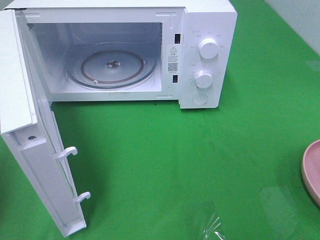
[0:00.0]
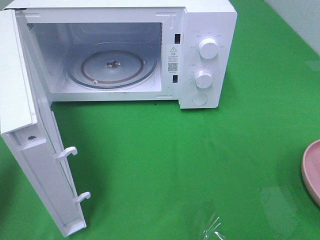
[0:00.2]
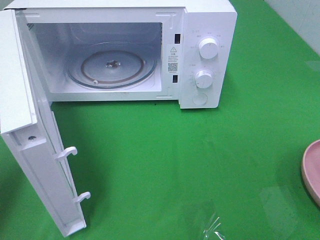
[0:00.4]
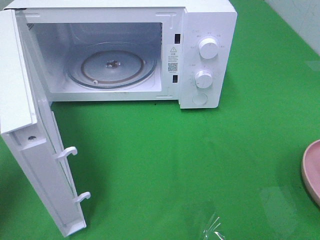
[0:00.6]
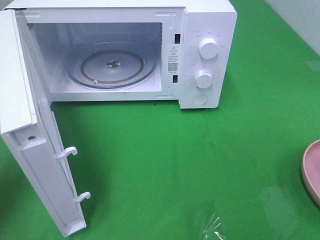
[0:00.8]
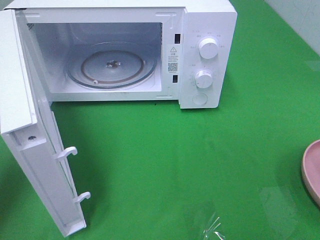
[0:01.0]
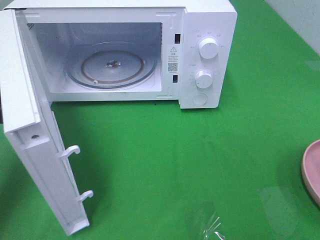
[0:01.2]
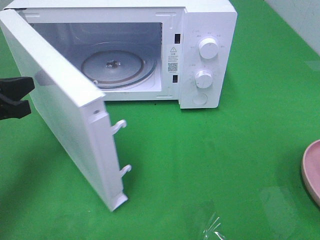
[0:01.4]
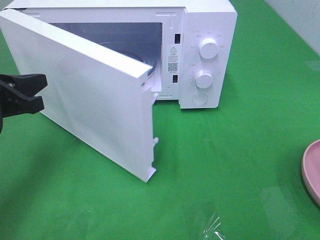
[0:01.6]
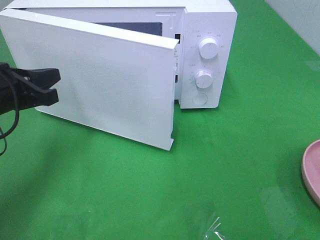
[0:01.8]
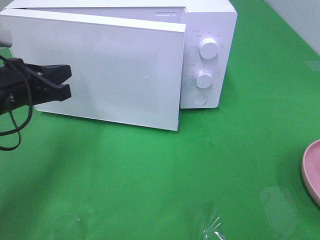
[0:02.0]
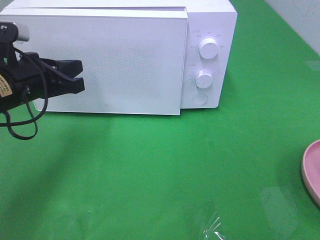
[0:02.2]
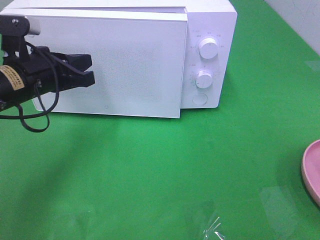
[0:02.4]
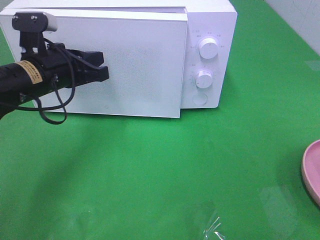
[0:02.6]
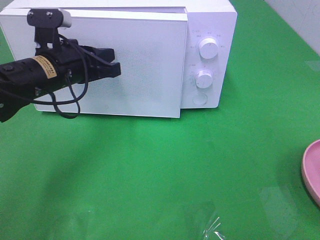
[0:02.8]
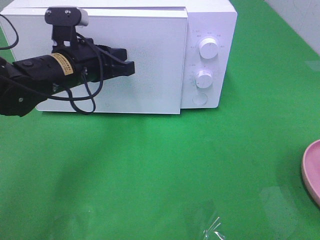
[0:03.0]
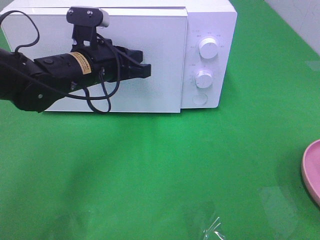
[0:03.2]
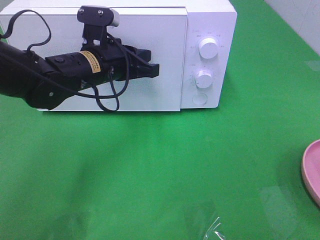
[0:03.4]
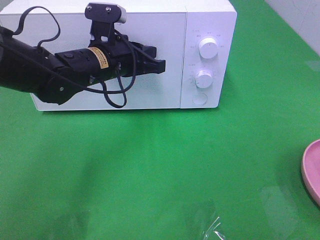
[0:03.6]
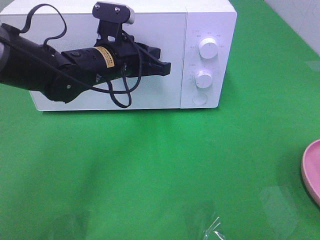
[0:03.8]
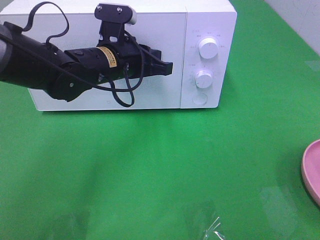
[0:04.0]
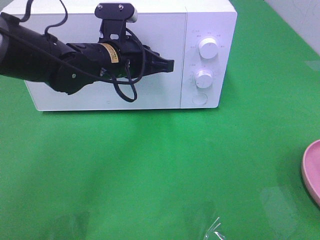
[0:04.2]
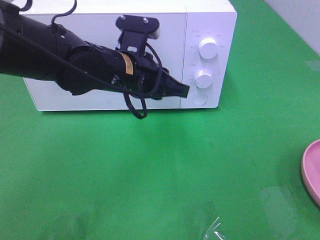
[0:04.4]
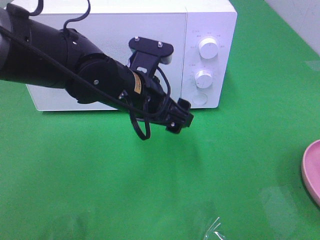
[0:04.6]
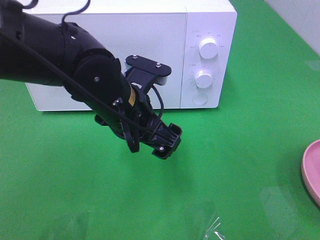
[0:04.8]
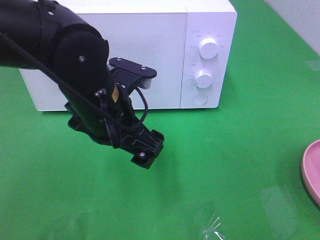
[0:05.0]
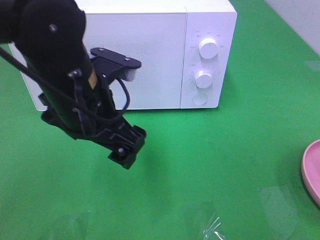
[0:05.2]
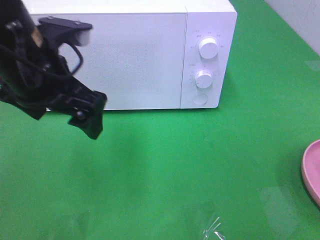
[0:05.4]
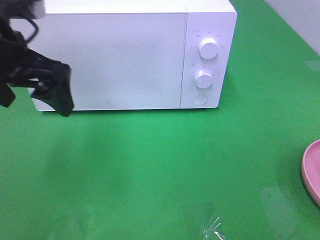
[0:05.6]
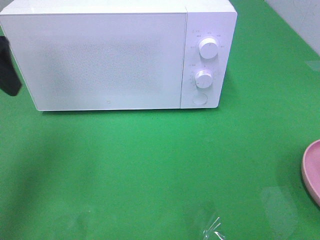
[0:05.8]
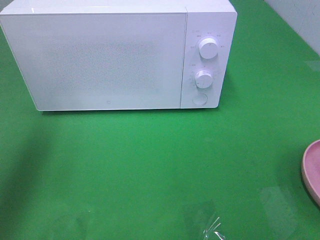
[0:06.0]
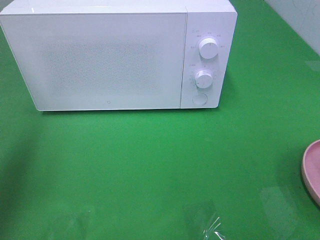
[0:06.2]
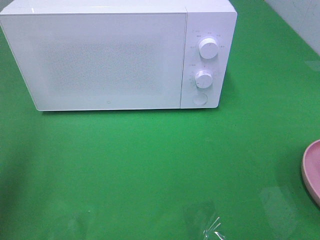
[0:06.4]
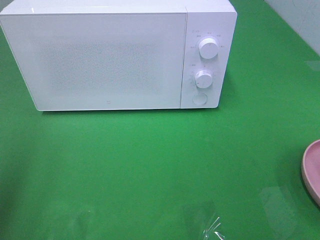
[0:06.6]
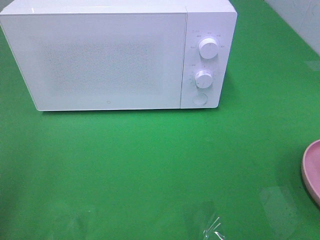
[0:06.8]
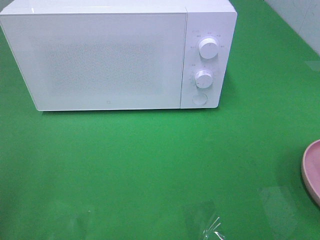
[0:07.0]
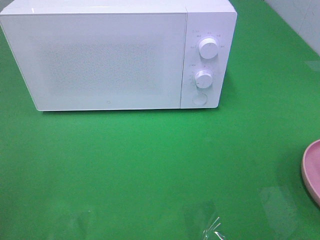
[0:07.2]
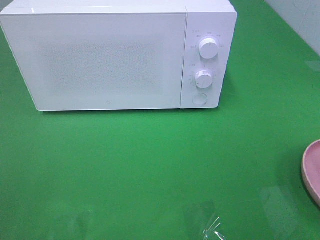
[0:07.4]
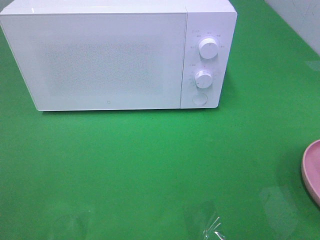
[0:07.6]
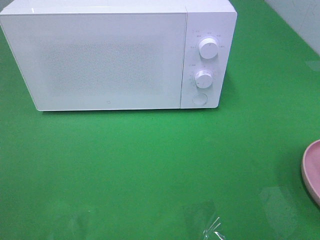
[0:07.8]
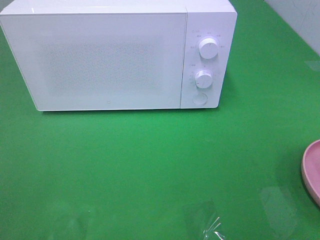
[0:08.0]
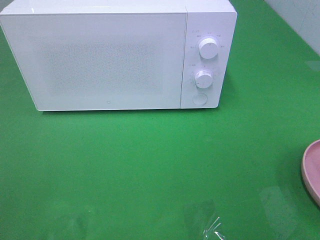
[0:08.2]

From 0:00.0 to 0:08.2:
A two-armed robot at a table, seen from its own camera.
Task of the whole recording: Heat the burger.
Step, from 0:00.0 to 0:04.4: Left hand: close the microwave door.
From 0:00.0 to 0:01.6: The left gripper heads forward, to the right and downward, covering roughly 15 cm.
From 0:01.6 to 0:03.2: The left gripper heads to the right and forward, covering some 15 cm.
From 0:03.2 to 0:05.0: The left gripper moves backward, roughly 10 cm, and opens.
From 0:05.0 to 0:06.6: The left gripper travels to the left, upward and backward by about 30 cm.

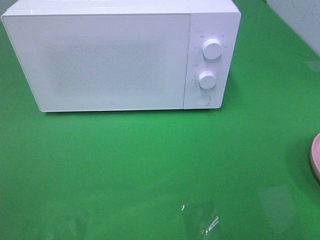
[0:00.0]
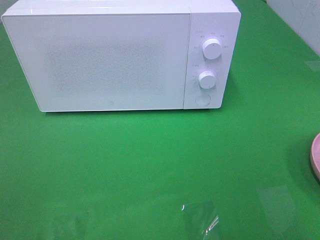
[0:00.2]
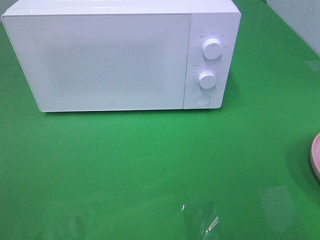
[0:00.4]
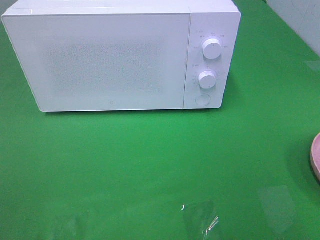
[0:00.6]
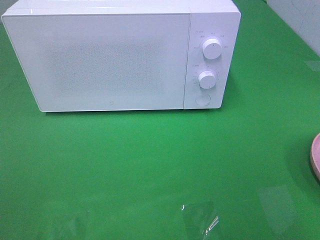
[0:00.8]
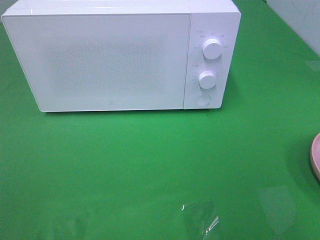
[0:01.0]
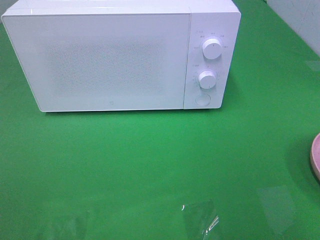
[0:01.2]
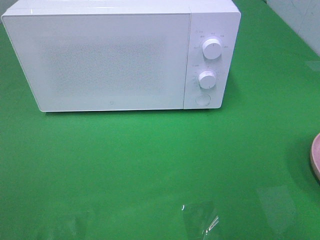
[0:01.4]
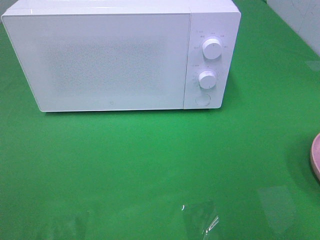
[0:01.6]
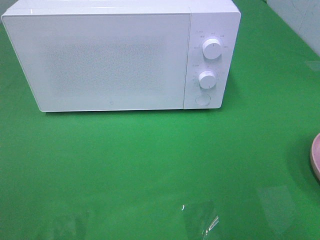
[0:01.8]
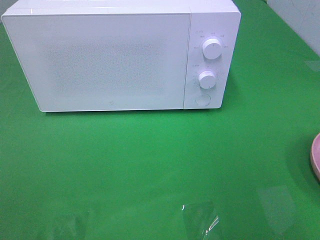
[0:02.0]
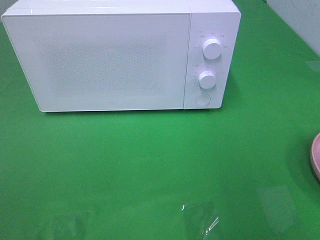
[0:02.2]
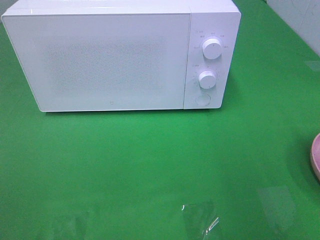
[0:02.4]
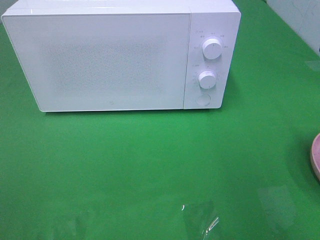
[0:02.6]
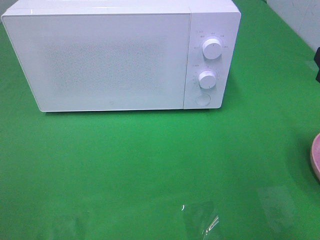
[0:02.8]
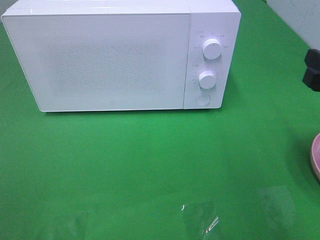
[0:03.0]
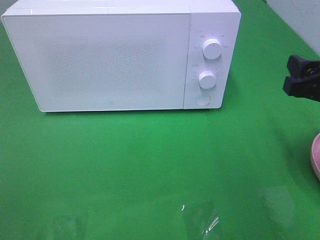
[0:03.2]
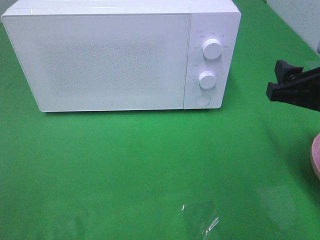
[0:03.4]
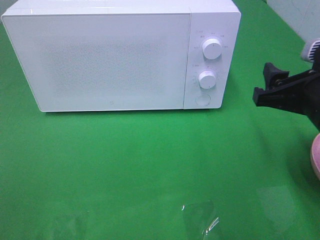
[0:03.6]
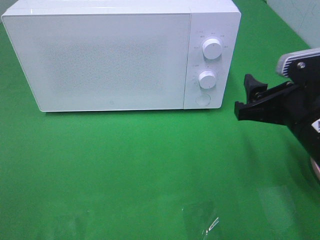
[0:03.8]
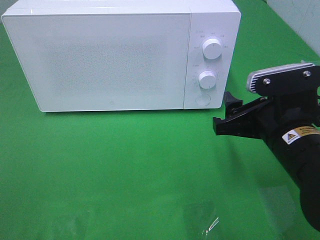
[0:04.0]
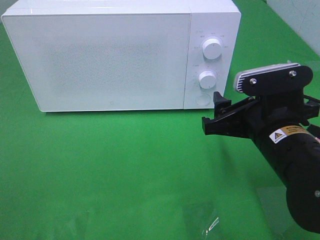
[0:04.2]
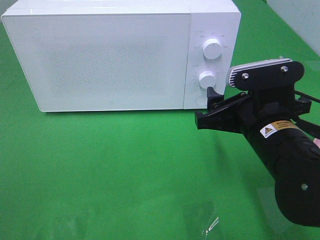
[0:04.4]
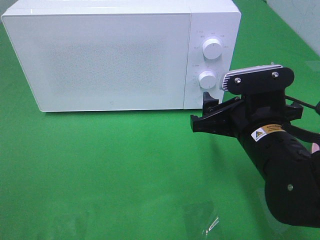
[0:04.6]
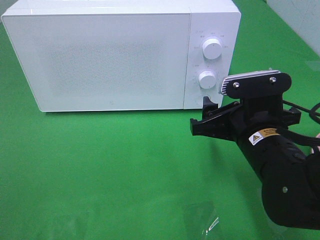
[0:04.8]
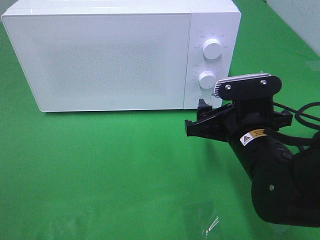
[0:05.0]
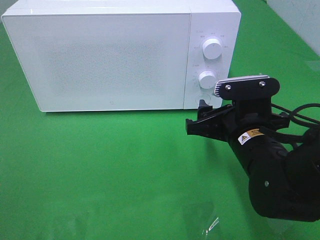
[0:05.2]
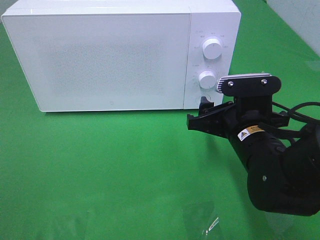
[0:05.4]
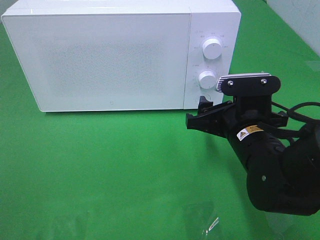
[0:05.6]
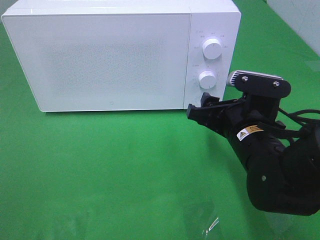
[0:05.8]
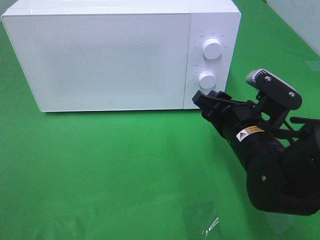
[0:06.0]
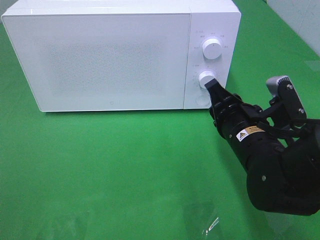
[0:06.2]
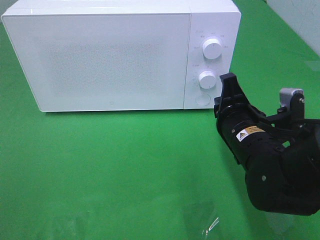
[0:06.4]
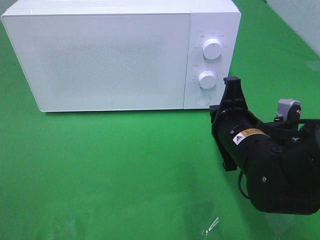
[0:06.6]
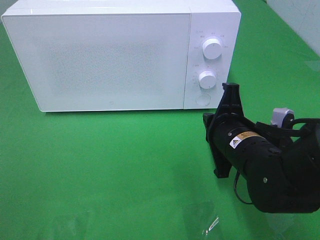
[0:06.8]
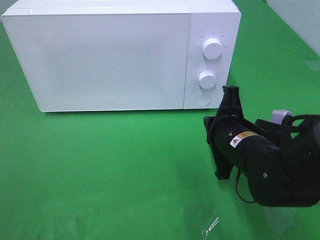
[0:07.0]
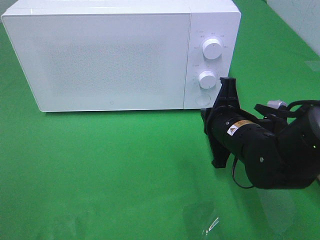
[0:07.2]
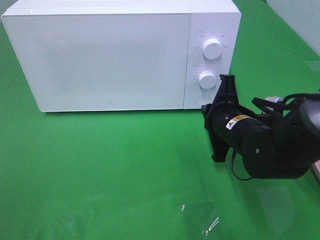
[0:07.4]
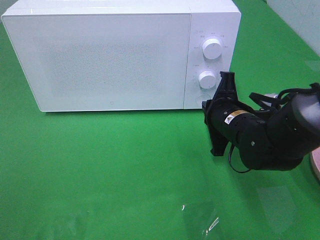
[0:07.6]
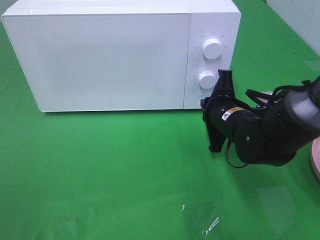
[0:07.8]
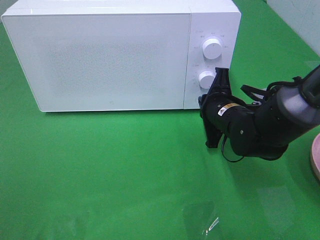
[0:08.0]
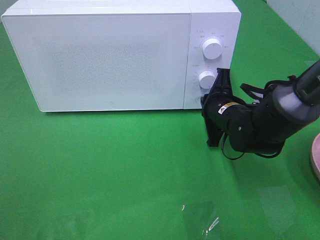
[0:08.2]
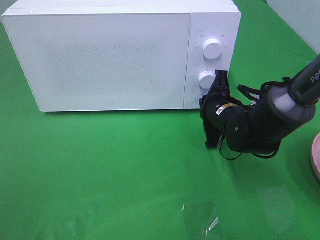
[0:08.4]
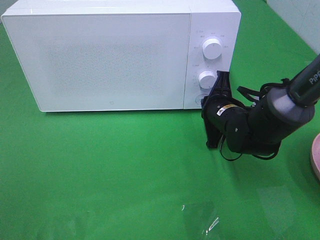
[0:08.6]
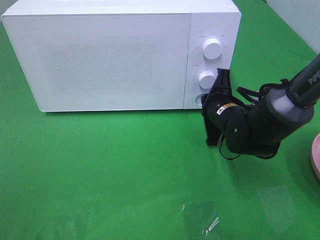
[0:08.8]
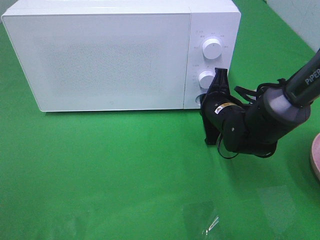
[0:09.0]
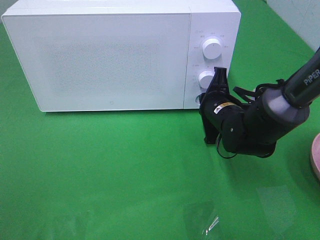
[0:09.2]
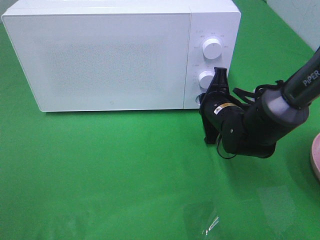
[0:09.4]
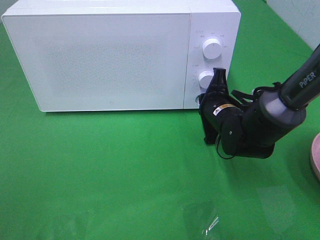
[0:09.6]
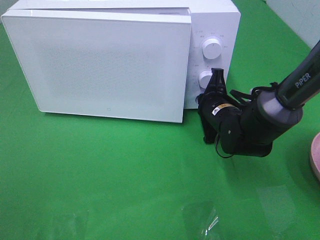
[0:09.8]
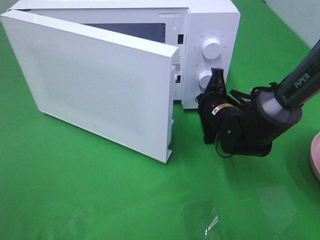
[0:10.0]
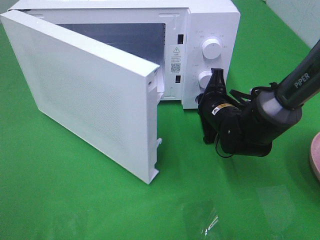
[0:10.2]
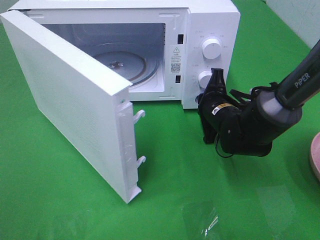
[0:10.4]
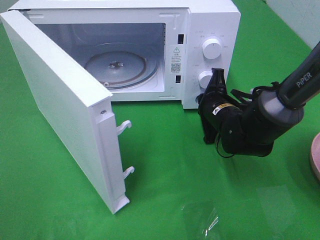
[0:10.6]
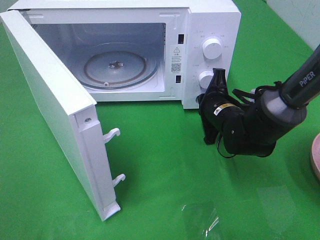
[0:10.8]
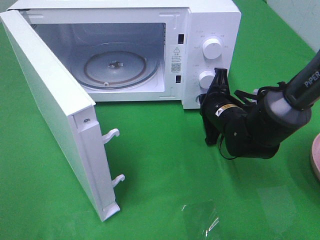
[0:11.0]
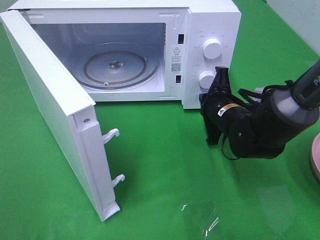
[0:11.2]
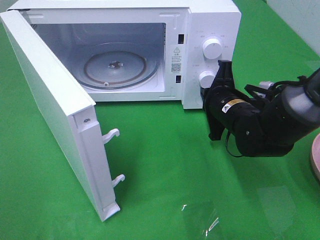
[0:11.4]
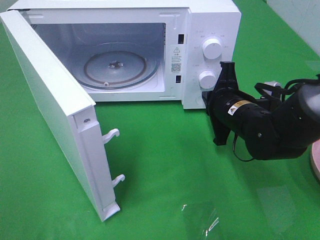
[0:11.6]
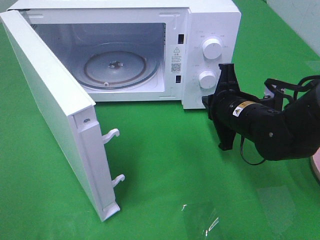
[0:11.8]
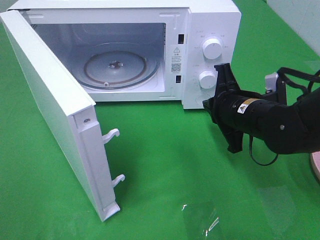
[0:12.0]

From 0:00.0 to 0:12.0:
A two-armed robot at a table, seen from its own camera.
Task of the whole recording: Heat the burger.
Step, from 0:00.0 to 0:11.2: Right hand: press the switch.
From 0:01.6 to 0:03.0: The right gripper moves forward and downward, approximately 15 cm.
From 0:03.0 to 0:04.4: The right gripper goes approximately 15 cm to the left and downward.
From 0:06.0 to 0:07.6: The right gripper moves forward, about 5 cm, and closes up.
From 0:07.6 to 0:09.0: The grippers make only small movements.
From 0:10.4 to 0:12.0: The right gripper travels backward and upward by about 10 cm.

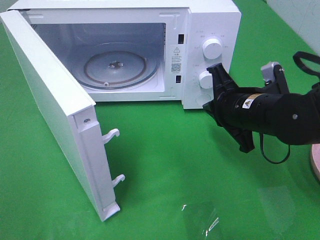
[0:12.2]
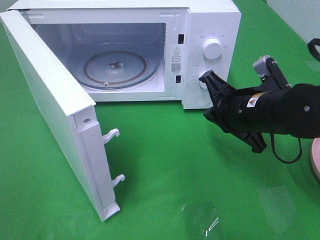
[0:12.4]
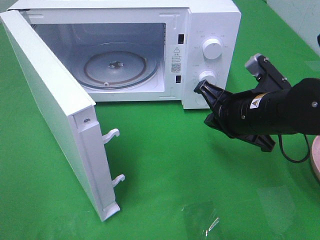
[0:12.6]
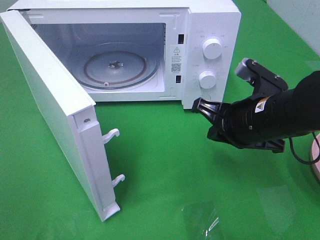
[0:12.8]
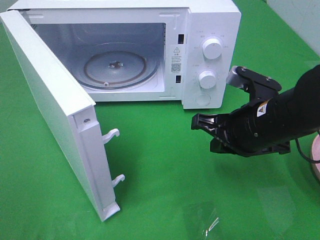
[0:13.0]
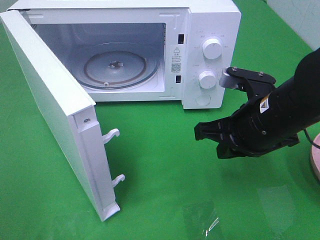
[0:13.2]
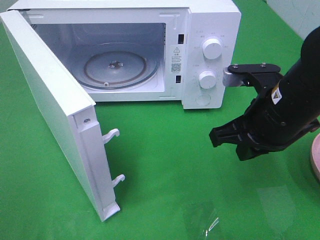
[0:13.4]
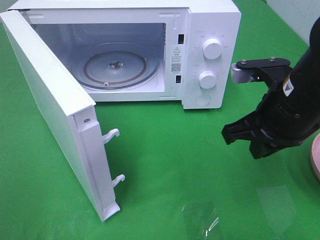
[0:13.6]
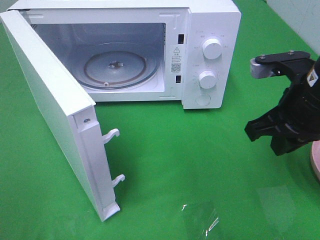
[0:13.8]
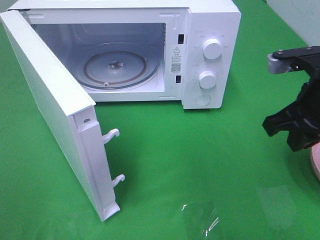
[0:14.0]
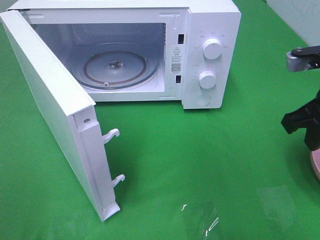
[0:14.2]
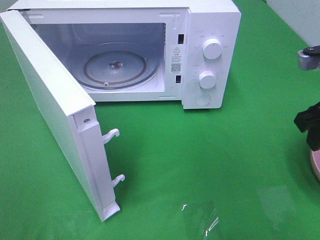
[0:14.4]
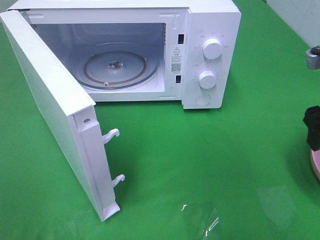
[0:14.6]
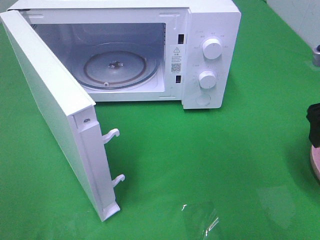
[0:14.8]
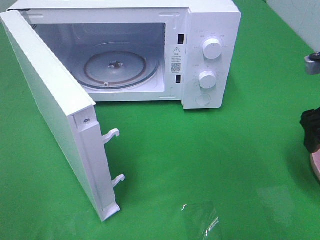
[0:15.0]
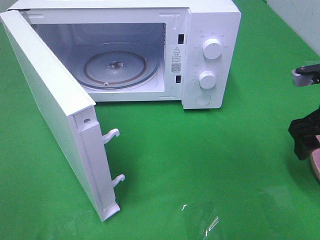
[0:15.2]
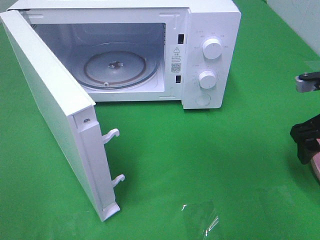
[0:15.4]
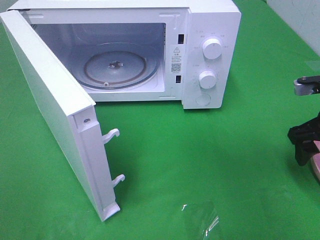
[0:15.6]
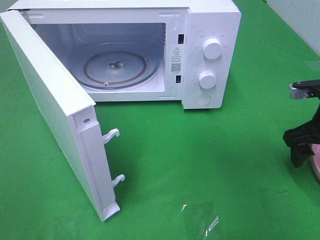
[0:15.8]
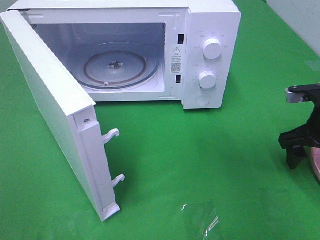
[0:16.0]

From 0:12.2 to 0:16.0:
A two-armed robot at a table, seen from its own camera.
Task of the whole recording: Heat the burger.
From 0:12.2 to 0:13.4: The right gripper heads upward, covering approximately 5 cm.
From 0:13.4 to 0:14.8: The right gripper shifts about 10 cm to the right, and opens.
From 0:14.8 to 0:16.0: The right gripper travels downward by roughly 10 cm.
